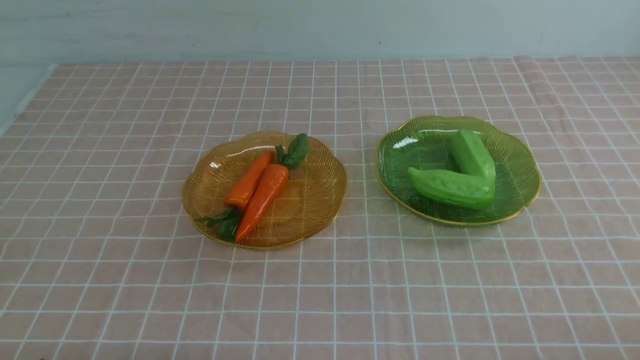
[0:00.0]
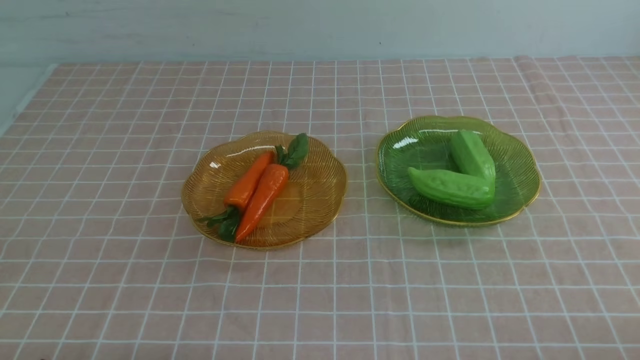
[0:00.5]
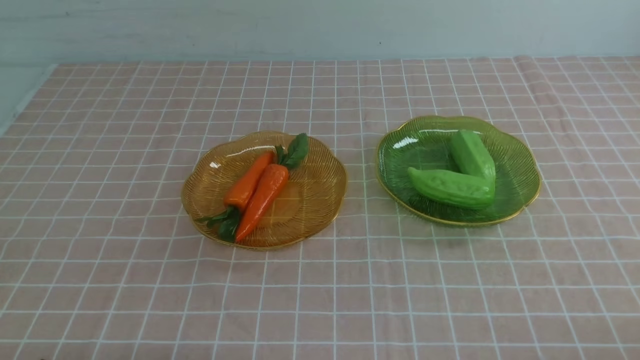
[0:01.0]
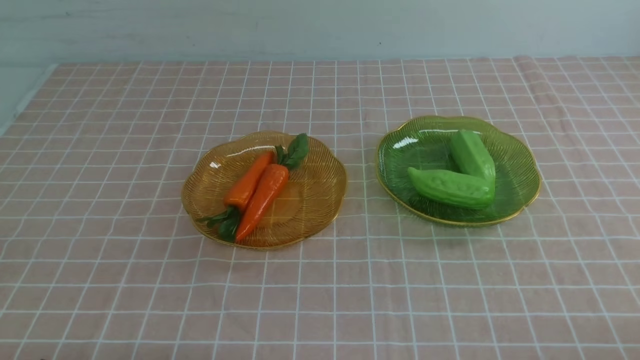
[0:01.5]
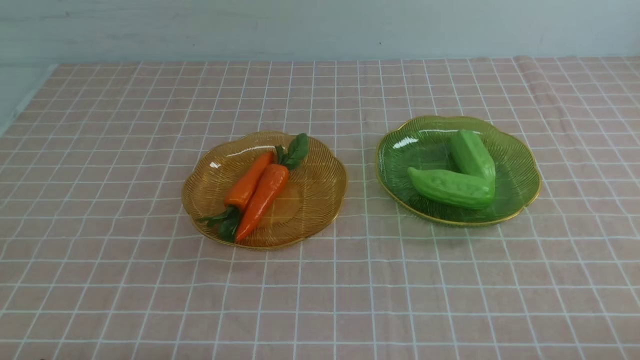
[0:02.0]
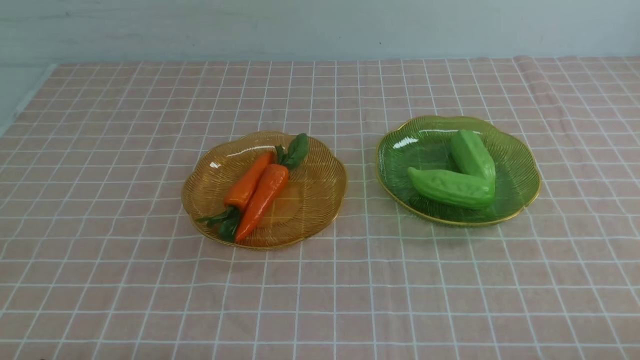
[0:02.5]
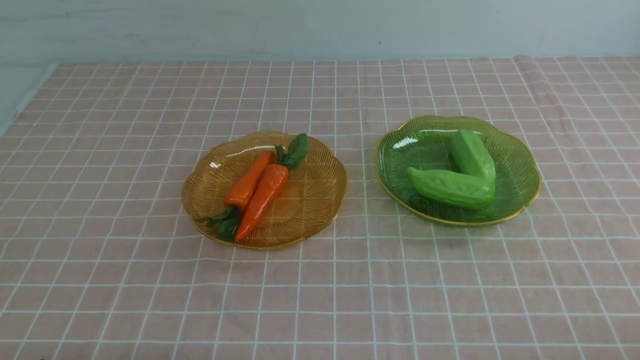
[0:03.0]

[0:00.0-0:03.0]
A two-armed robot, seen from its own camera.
0:00.0 to 0:03.0: The two grippers keep their place.
